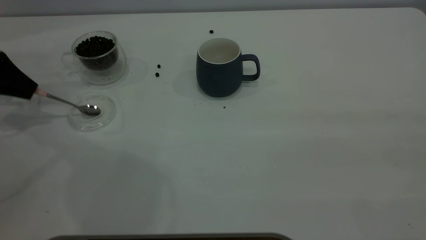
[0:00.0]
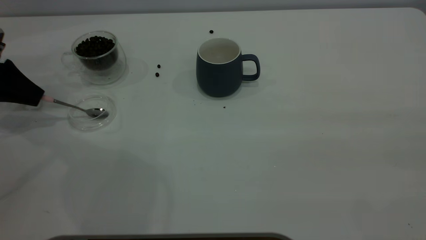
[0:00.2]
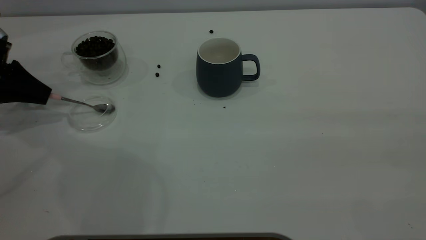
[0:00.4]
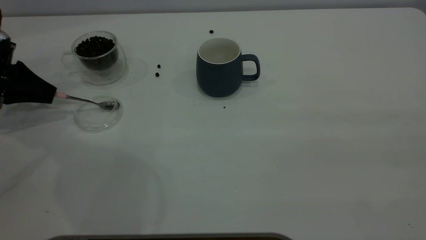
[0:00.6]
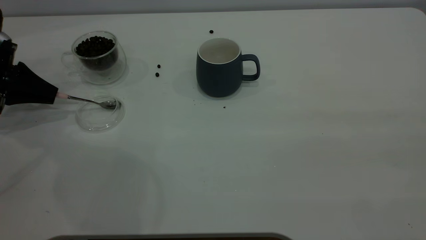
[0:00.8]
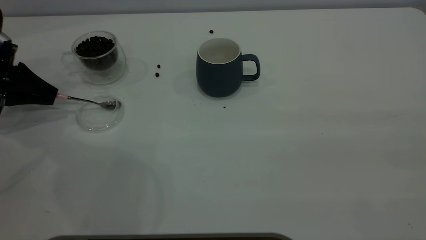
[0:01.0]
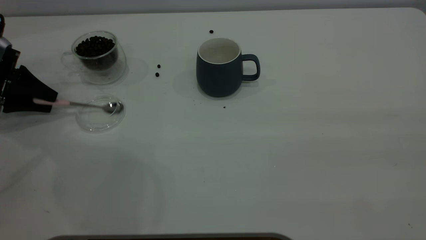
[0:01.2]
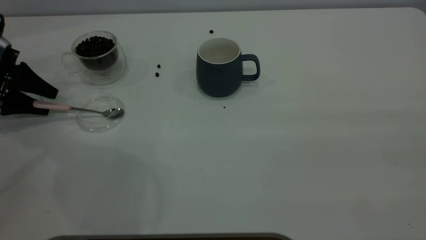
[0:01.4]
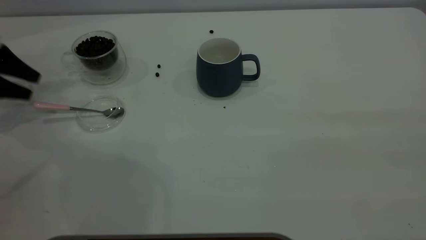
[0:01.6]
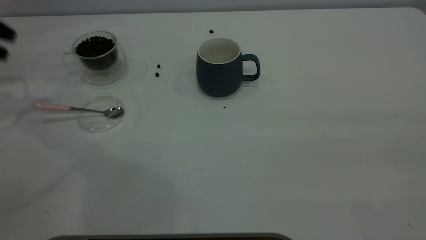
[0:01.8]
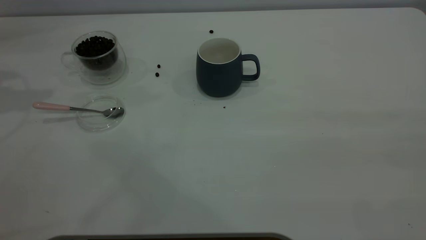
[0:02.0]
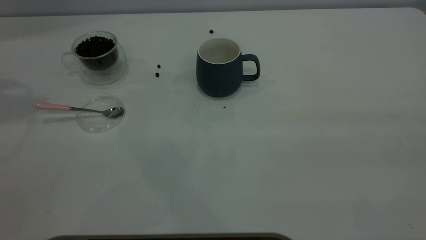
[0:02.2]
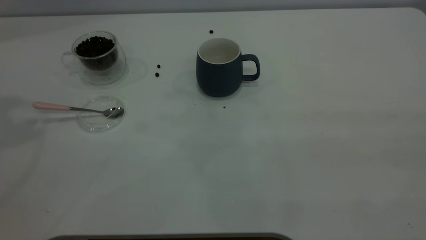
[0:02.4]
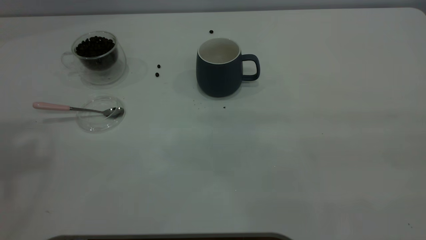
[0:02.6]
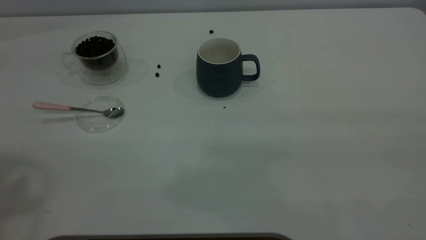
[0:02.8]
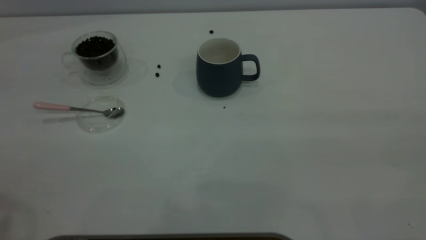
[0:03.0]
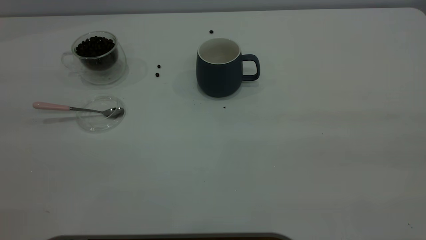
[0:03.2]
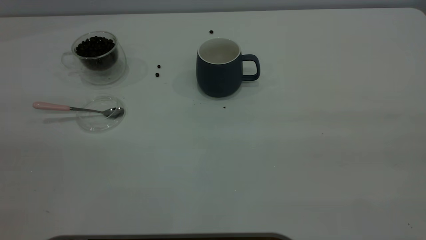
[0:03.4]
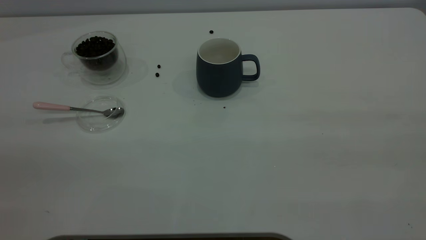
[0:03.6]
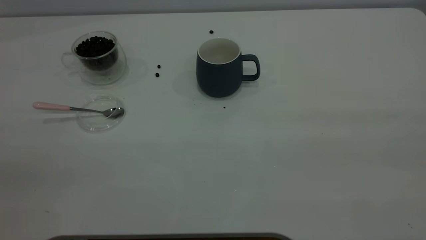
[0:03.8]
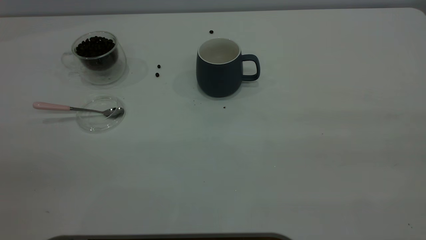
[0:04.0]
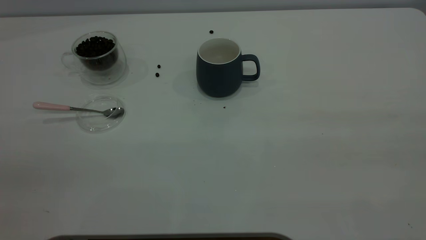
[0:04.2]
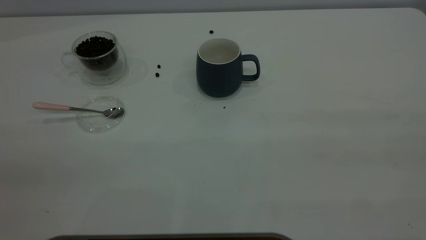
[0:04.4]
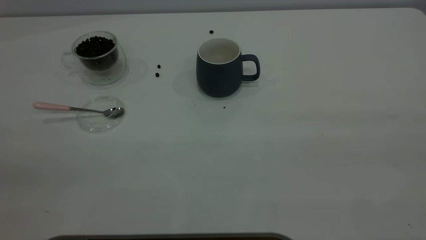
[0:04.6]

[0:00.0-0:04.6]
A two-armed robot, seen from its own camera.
Task of the whole recording: the right gripper place the grey cup in the center of the table, the left gripper take the pink spoon from the cup lid and scoop out the coffee beans from the coffee cup and put them into the grey cup, the left gripper put the spoon back into the cup lid.
0:00.0 to 0:01.6: The left gripper opens up.
0:01.6 to 0:03.0: The left gripper shifts about 40 cm upward, backward and to the right.

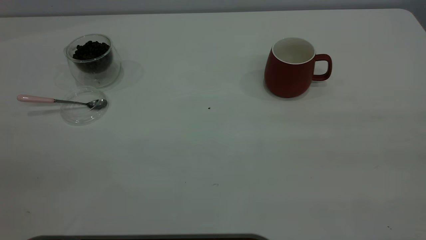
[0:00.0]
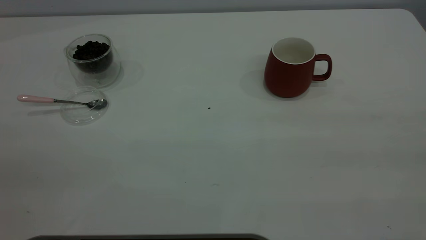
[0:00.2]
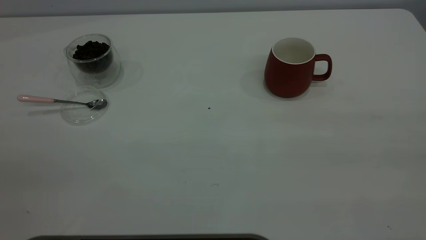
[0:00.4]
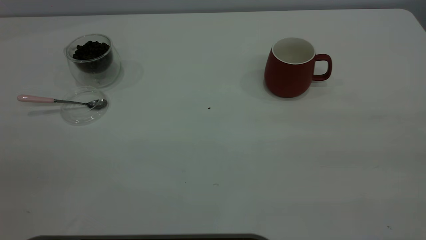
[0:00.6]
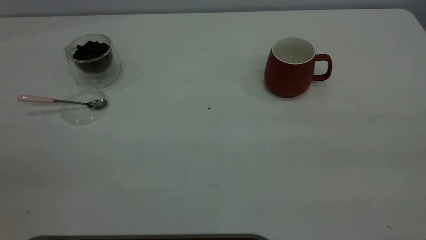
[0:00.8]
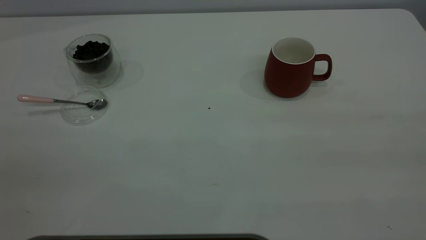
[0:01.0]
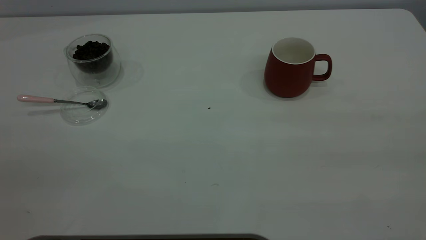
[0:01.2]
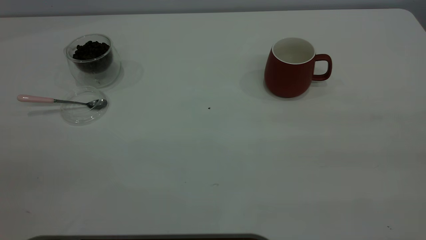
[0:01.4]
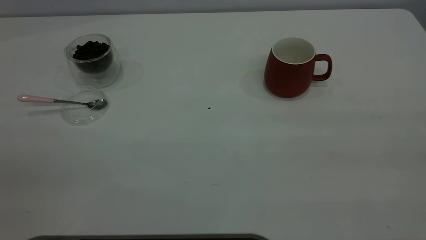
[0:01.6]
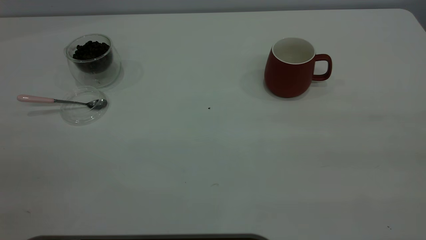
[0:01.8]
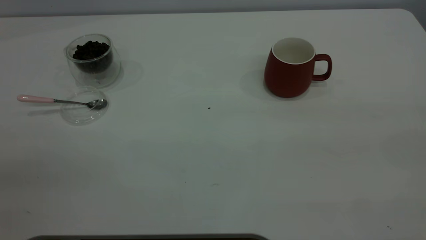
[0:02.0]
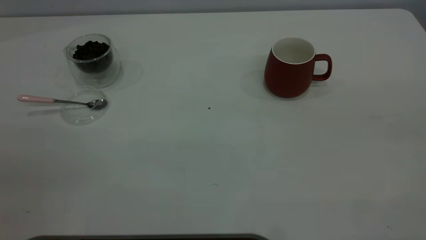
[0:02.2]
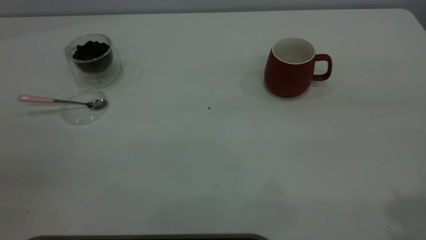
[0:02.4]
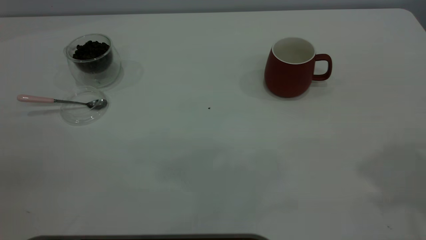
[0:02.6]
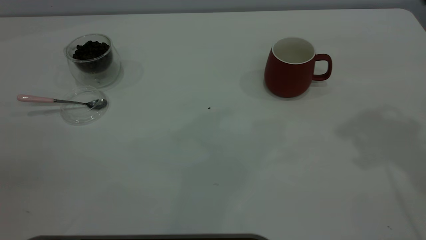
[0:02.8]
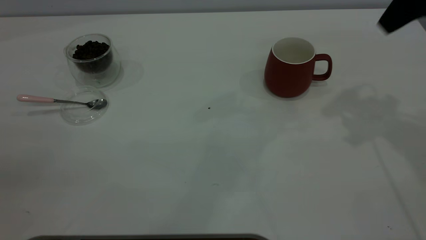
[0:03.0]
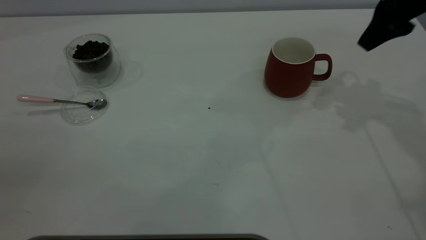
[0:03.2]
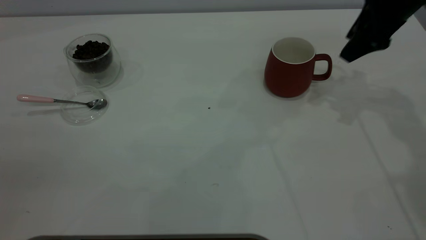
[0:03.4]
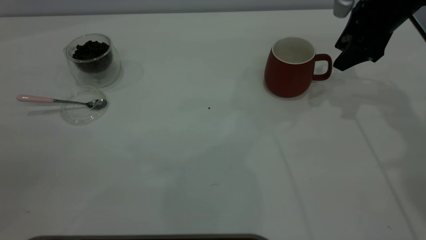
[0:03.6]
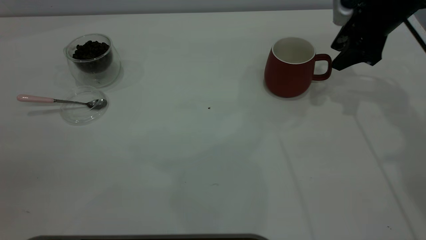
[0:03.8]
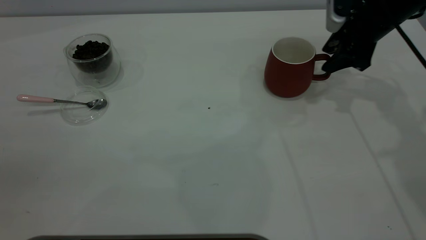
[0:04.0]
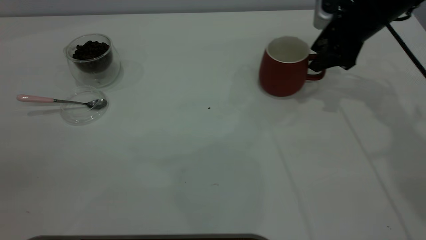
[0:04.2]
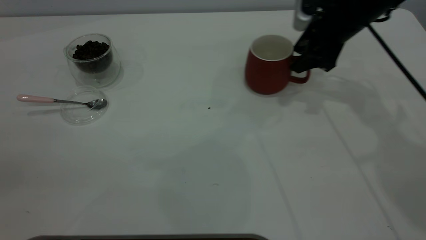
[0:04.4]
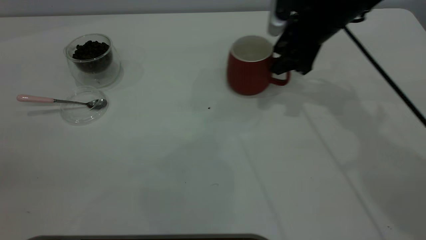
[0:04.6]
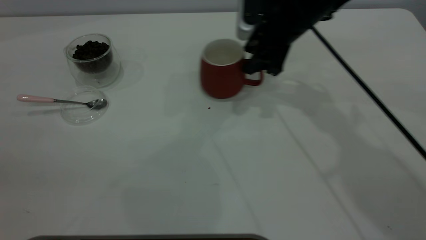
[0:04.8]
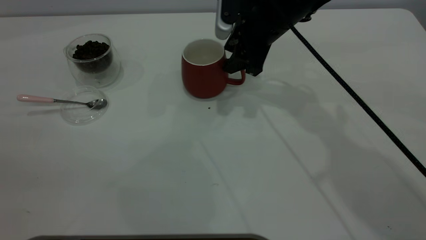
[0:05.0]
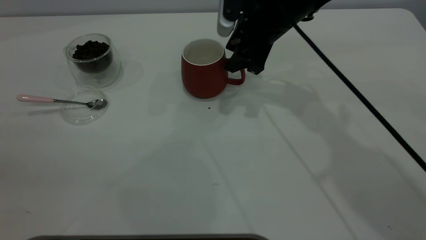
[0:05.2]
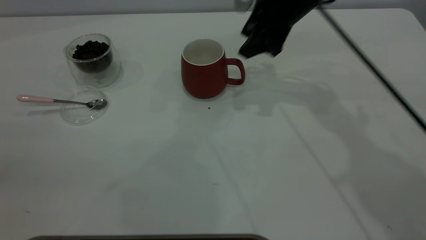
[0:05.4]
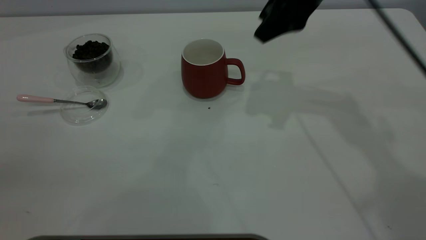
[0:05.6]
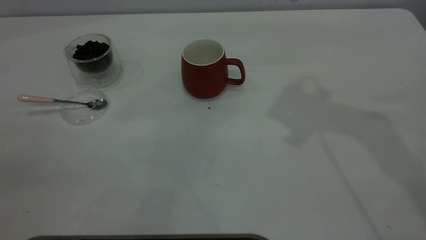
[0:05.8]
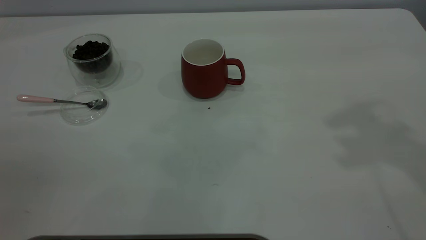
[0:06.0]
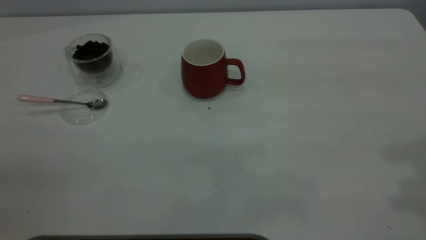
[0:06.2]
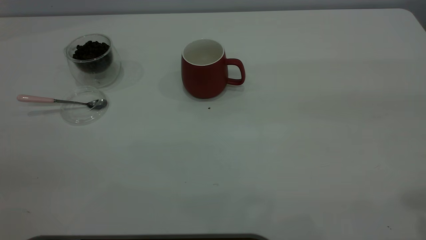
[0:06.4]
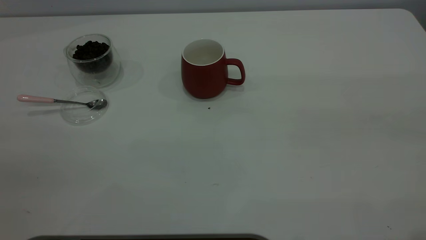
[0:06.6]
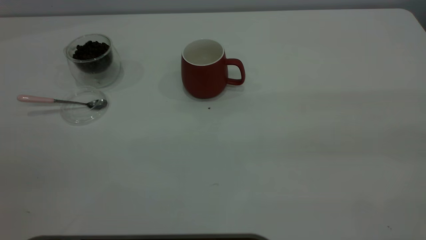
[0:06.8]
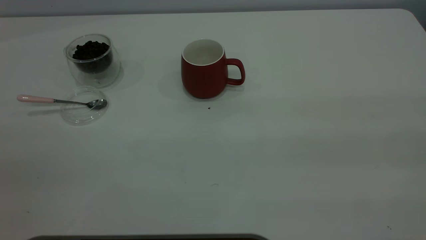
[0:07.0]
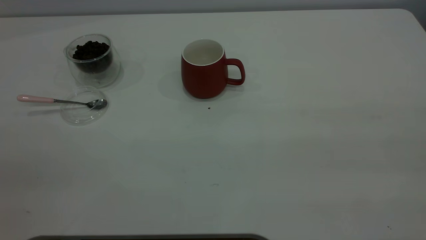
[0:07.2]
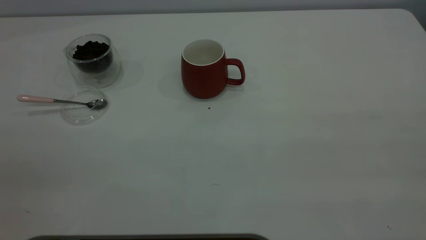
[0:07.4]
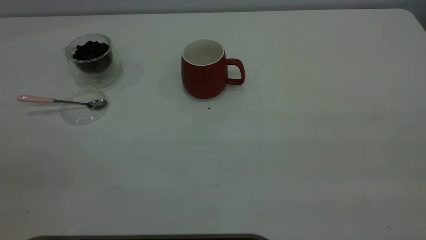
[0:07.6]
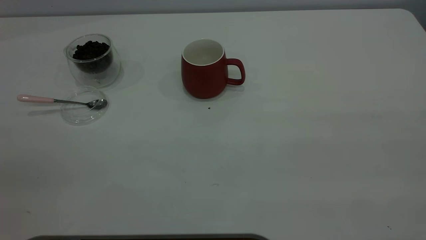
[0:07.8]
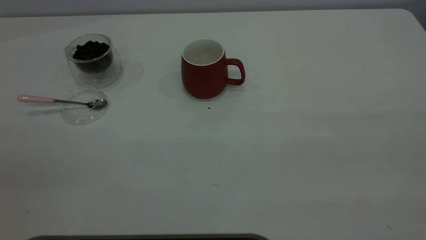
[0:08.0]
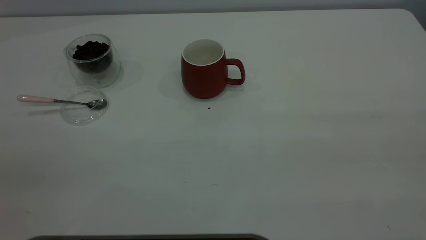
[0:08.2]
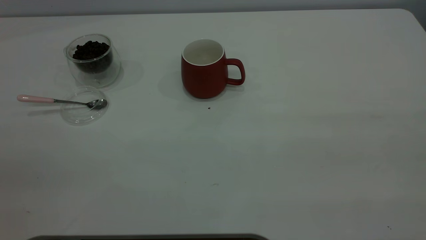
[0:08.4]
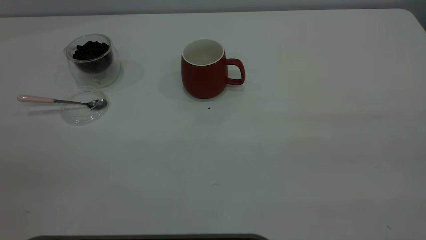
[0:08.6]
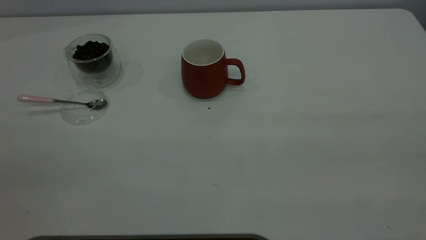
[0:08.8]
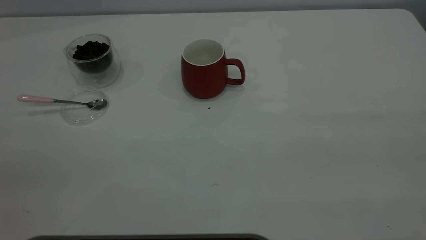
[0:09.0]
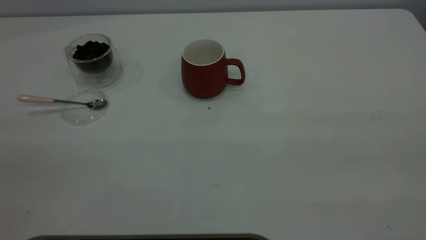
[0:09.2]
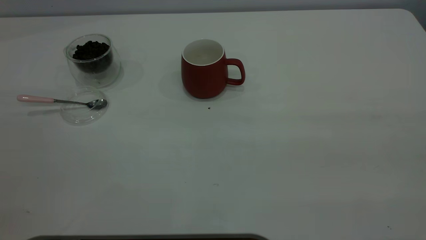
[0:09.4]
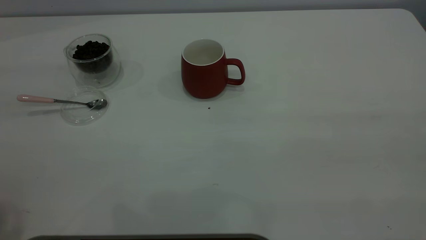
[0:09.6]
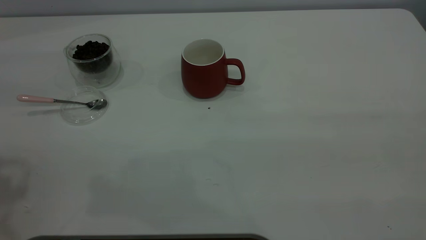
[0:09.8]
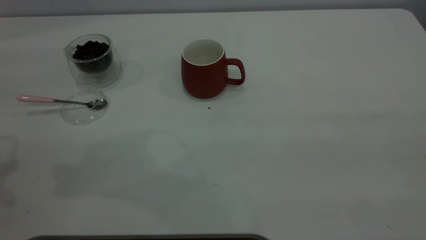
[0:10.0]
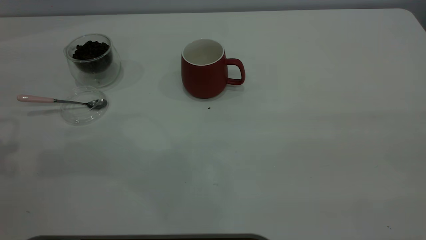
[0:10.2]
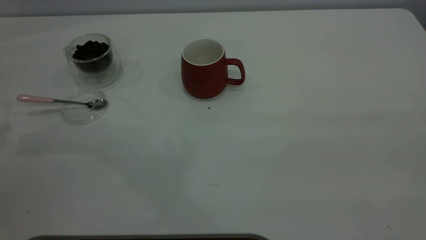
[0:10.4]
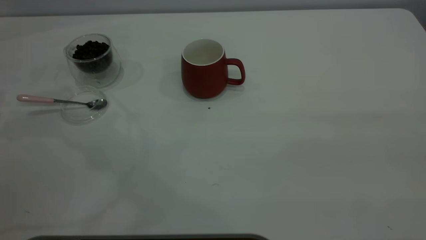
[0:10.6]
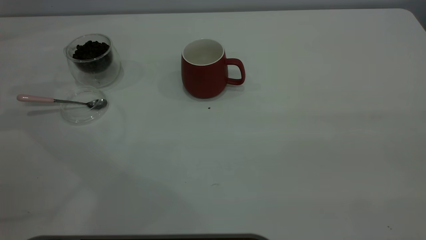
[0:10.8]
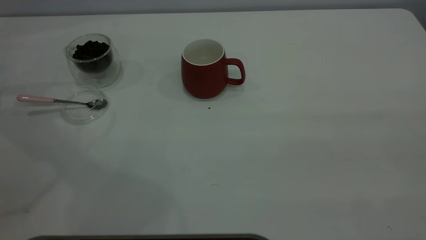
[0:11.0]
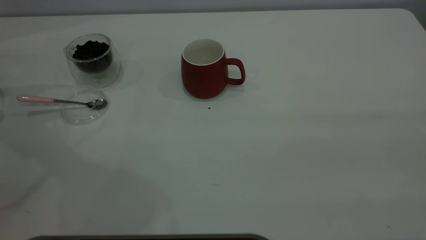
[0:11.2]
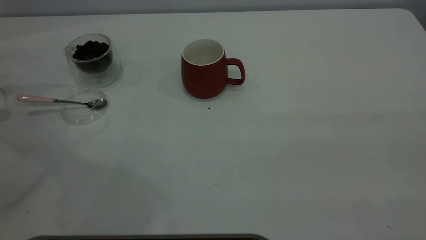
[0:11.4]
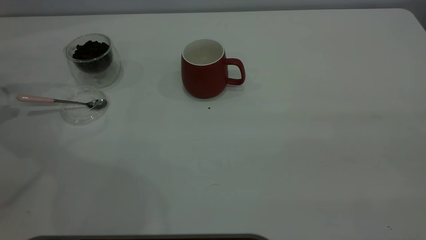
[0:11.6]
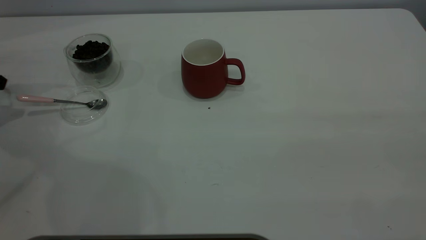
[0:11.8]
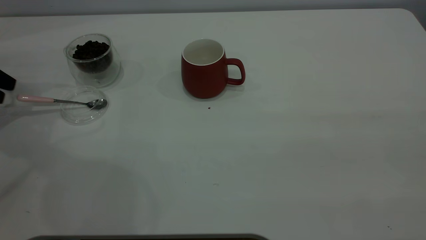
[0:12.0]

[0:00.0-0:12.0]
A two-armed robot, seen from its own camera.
Task of the whole recording: the right gripper place the red cup in the center of the table, the left gripper take the pink spoon from the cup lid and scoop out the coffee beans from the coffee cup and put them into the red cup, the left gripper put the spoon back into the cup lid.
Step, 0:00.0 to 0:05.2: Move the cup to the center of view.
0:00.0 to 0:01.6: Neither gripper changes place.
0:01.6 to 0:03.0: The right gripper goes some 35 cm forward, and opens.
0:03.0 to 0:04.4: The right gripper is displaced downward, forward and to the left by some 20 cm.
0:04.4 to 0:06.0: The right gripper heads upward and backward, covering about 30 cm.
0:10.4 to 0:12.0: The left gripper moves downward, roughly 15 cm.
